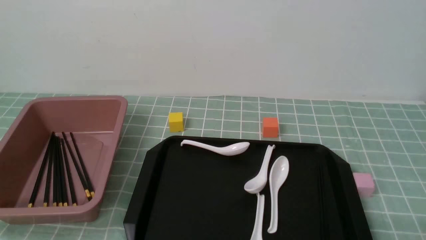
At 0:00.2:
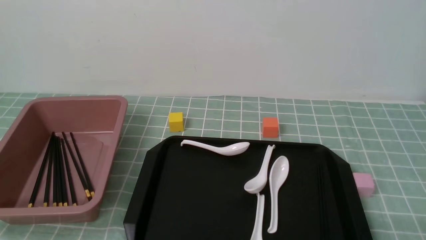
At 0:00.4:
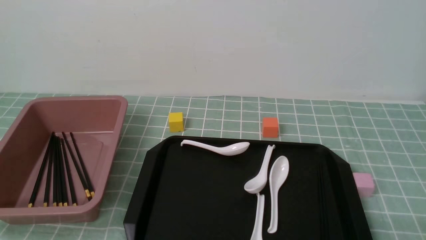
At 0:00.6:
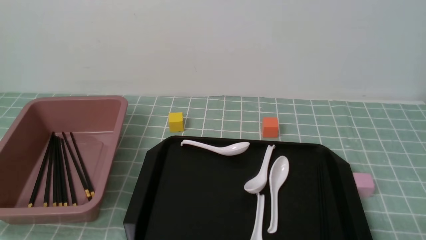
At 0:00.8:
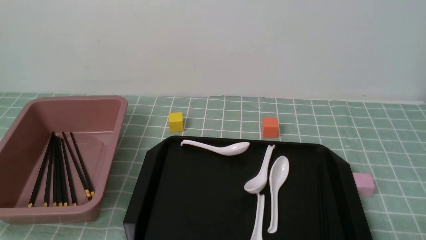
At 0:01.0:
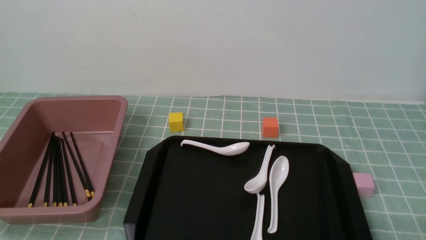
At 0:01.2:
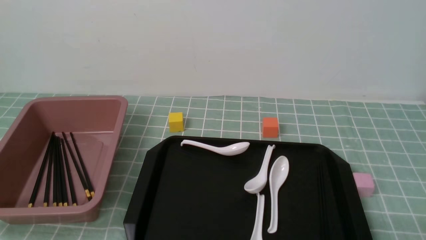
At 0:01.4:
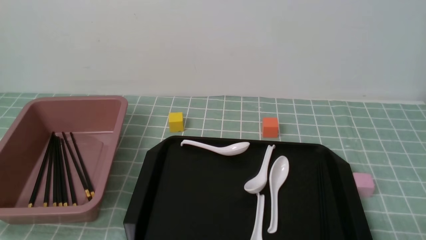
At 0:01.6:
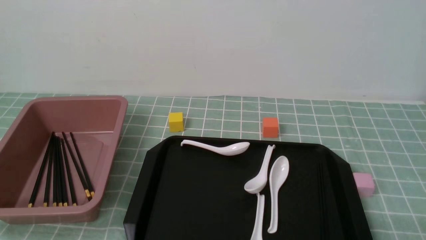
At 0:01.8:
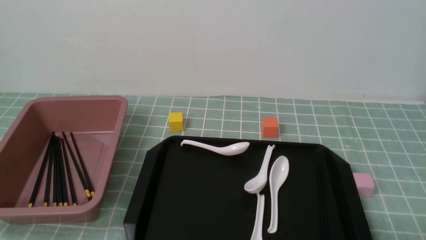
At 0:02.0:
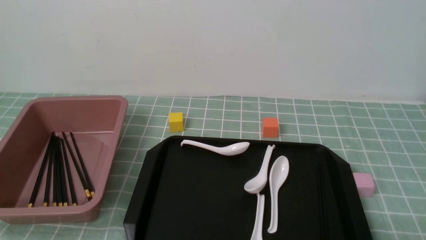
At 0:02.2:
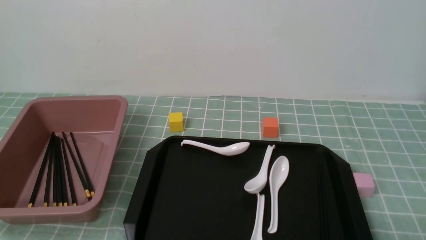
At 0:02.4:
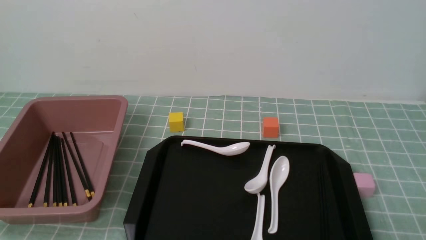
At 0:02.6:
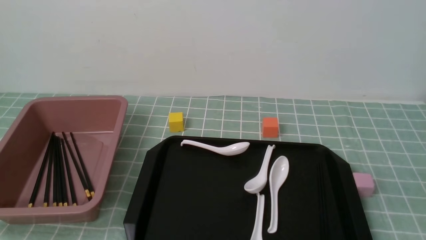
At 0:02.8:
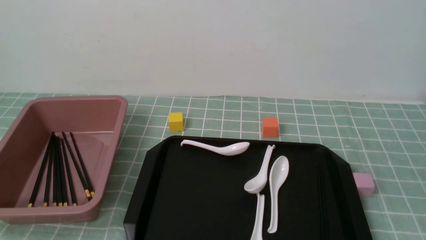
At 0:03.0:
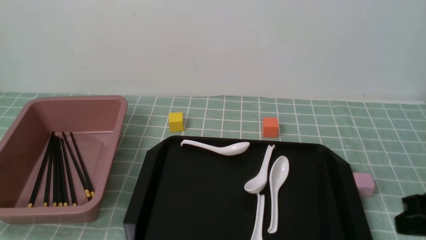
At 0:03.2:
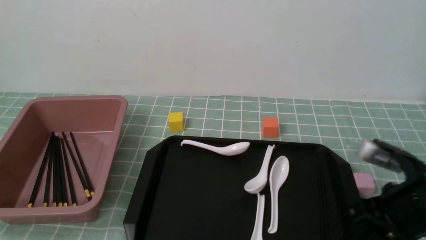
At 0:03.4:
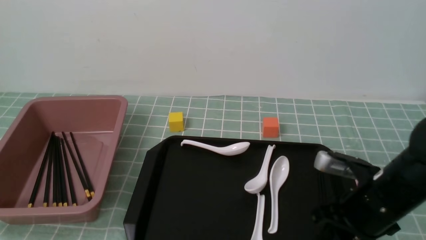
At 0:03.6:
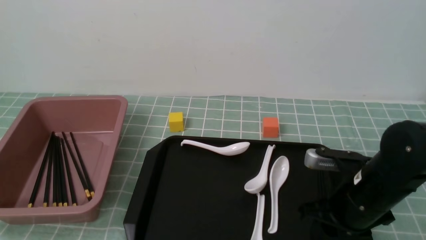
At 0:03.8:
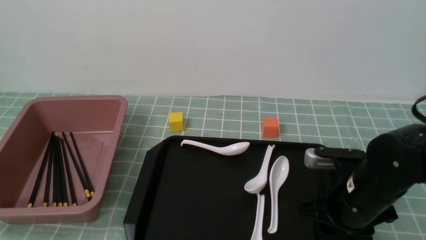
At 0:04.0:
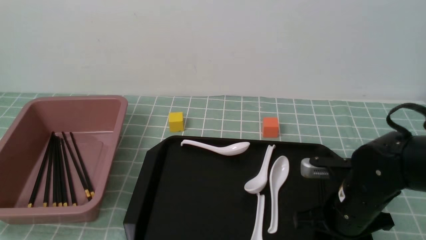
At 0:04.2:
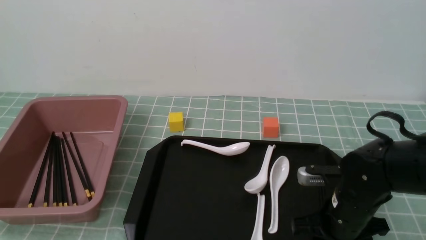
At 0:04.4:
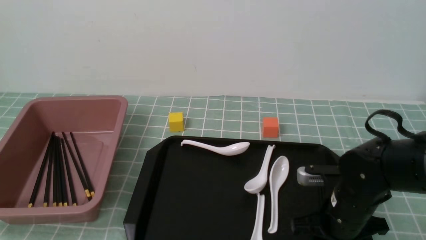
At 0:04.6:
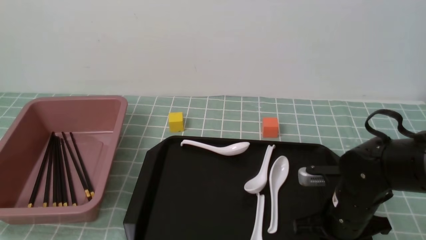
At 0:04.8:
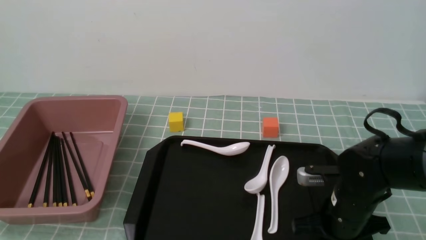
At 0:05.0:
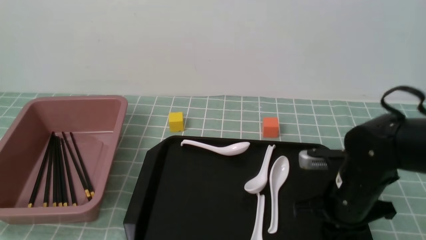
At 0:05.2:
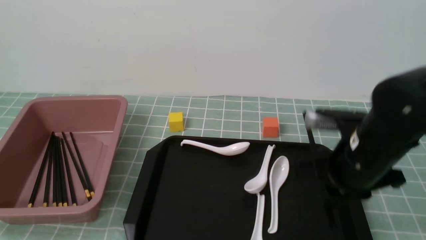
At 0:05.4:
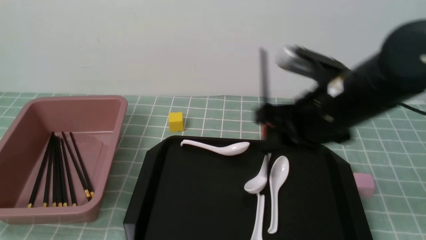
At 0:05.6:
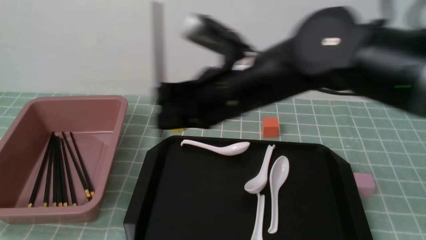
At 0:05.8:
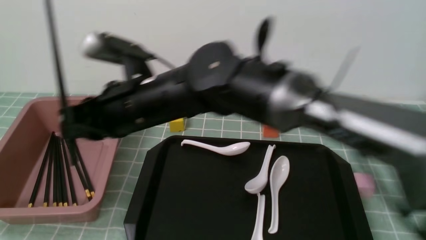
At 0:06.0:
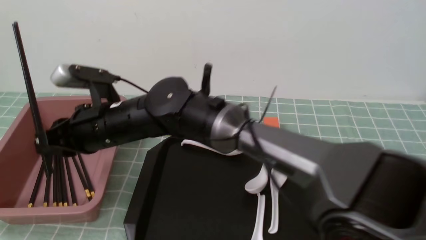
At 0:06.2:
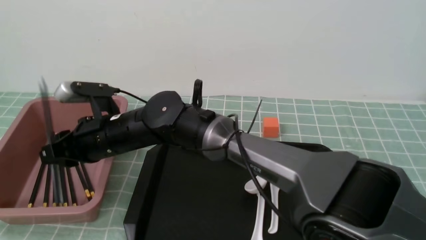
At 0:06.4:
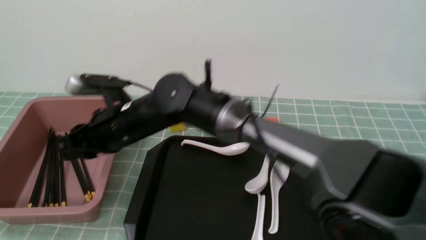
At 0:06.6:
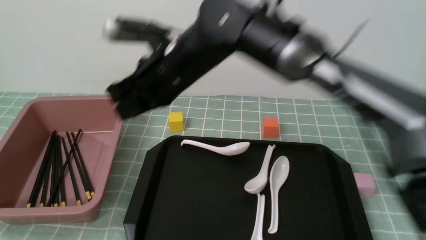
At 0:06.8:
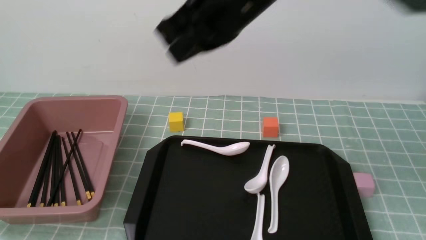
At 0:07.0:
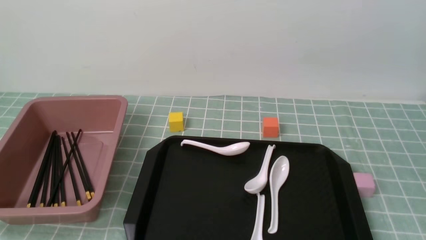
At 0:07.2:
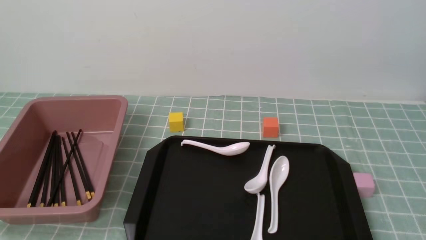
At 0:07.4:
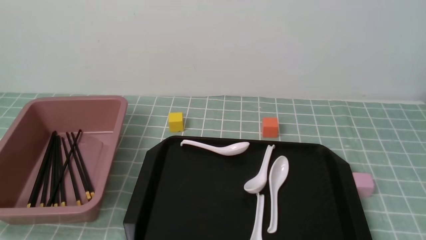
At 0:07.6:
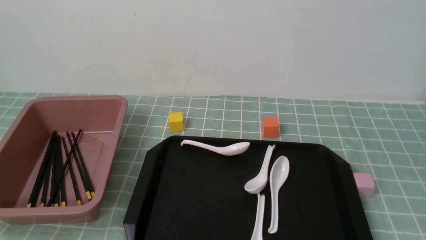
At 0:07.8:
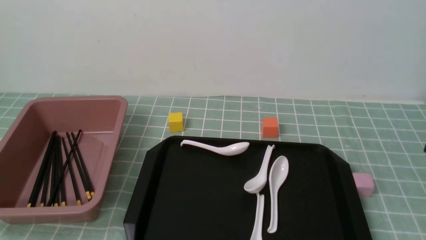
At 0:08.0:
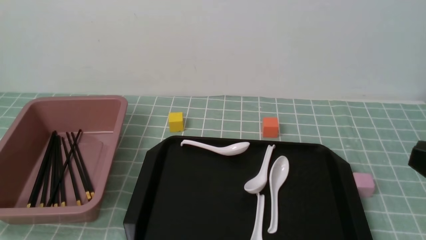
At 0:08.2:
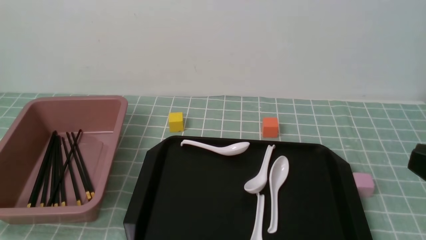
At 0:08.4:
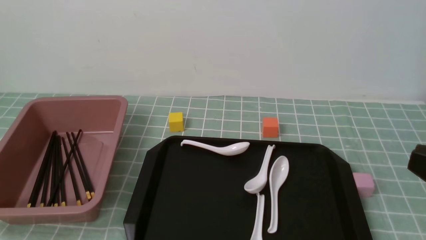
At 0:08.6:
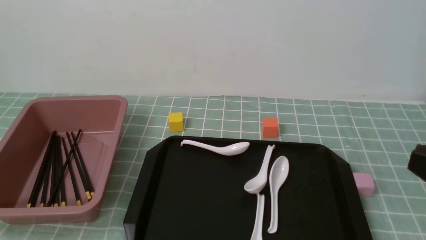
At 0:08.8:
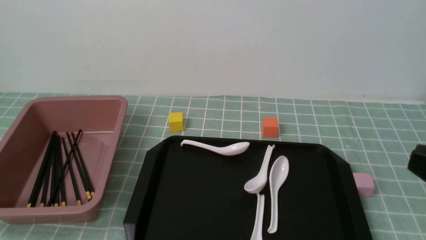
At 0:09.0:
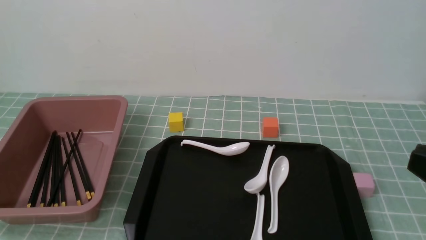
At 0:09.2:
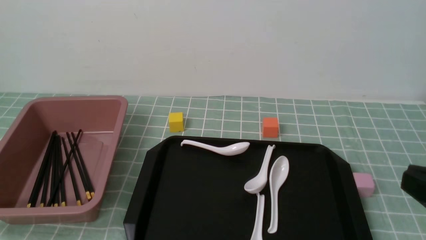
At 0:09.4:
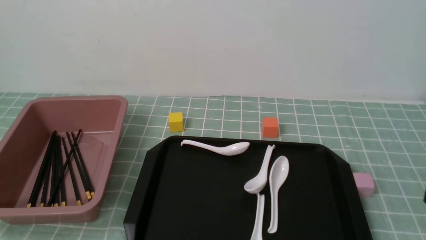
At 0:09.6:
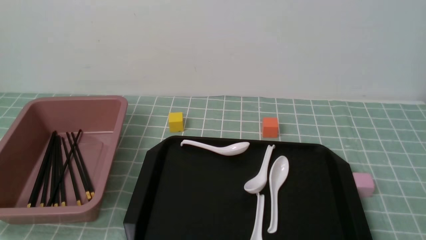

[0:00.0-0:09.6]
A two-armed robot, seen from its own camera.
Step, 0:00.0 to 0:05.2: use the right arm to grab a pair of chopsticks.
Step, 0:05.4 to 0:06.6: use the right arm to put the chopsticks into the lunch box.
0:01.6 to 0:03.2: The right gripper travels forward by roughly 15 cm, and closes.
0:03.2 to 0:04.8: The right gripper moves downward and to the left, some 10 cm, and opens and closes again.
0:04.8 to 0:06.4: The right gripper moves to the left and upward, roughly 30 cm.
0:06.4 to 0:08.0: The right gripper moves to the right and backward, about 40 cm, and closes its fingers.

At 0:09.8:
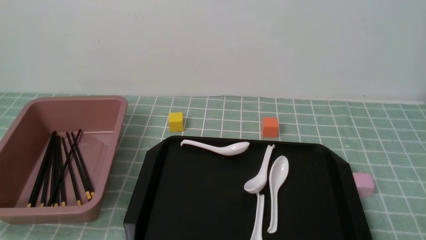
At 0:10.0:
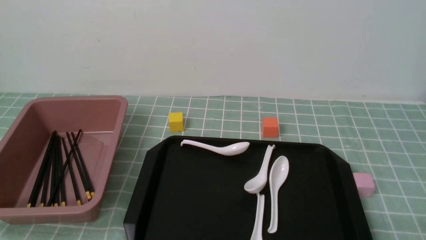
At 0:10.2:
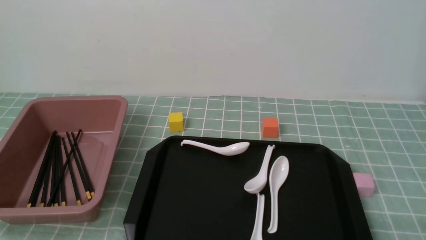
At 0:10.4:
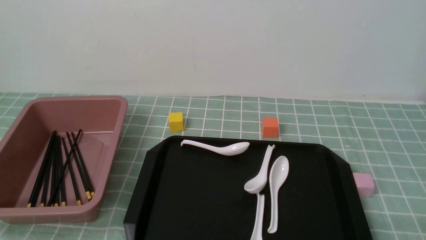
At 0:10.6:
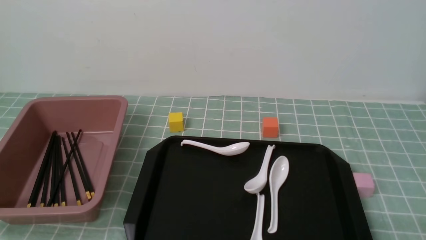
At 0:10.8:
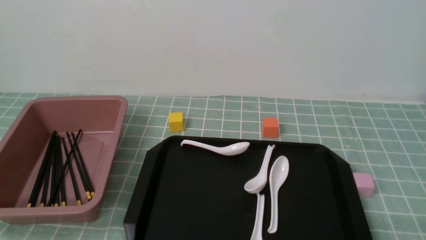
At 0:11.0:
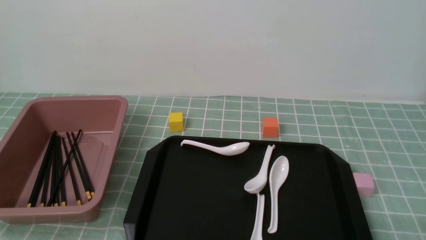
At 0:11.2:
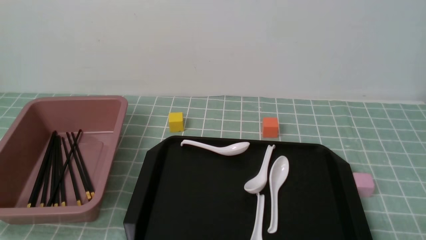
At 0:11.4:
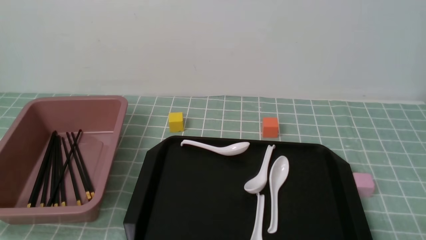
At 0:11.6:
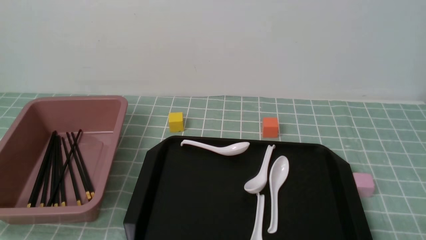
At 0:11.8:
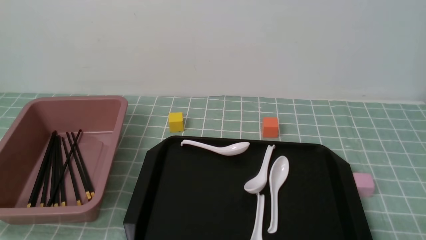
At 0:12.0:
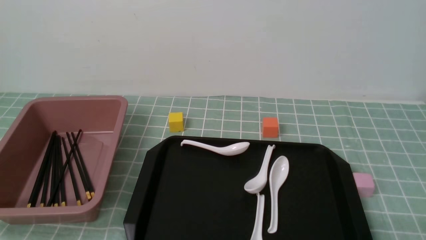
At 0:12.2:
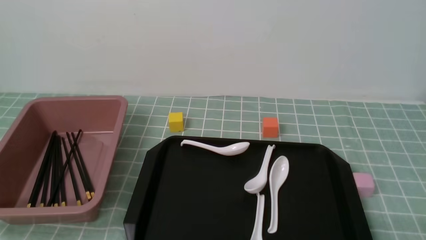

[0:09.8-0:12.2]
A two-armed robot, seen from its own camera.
0:11.0 to 0:12.2: Both grippers stay put.

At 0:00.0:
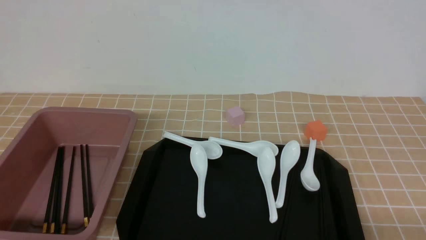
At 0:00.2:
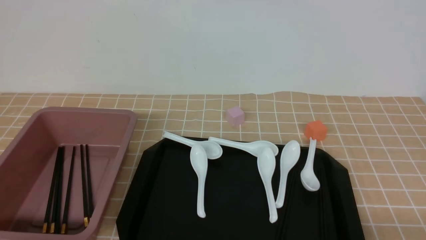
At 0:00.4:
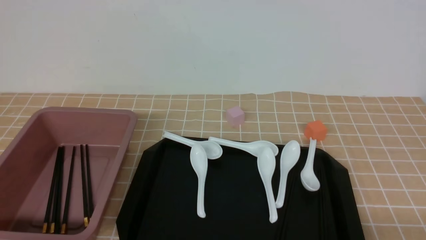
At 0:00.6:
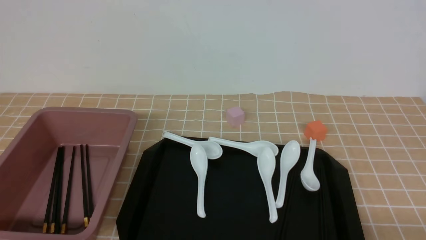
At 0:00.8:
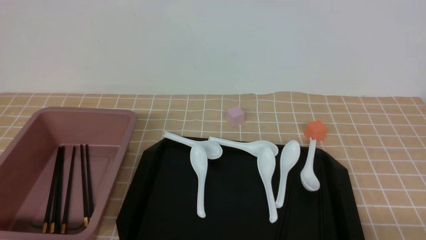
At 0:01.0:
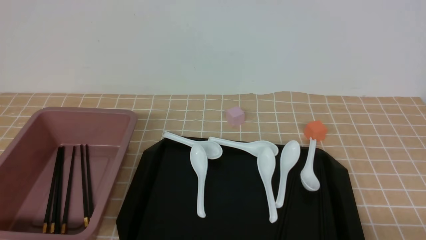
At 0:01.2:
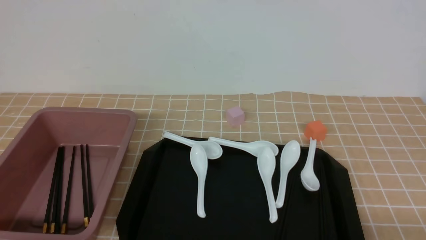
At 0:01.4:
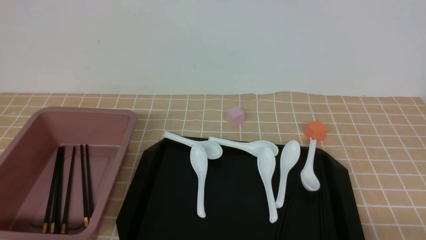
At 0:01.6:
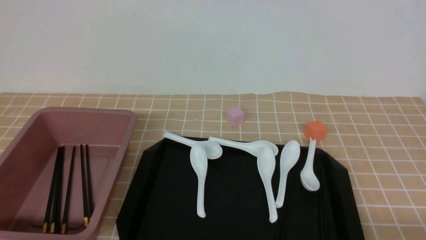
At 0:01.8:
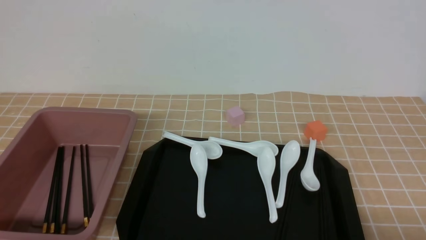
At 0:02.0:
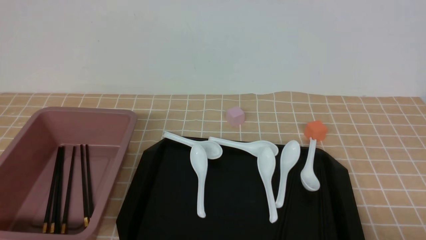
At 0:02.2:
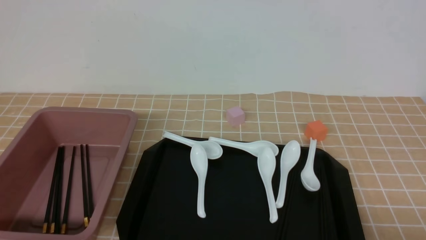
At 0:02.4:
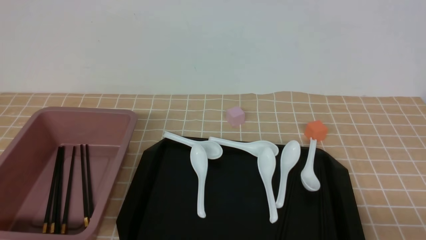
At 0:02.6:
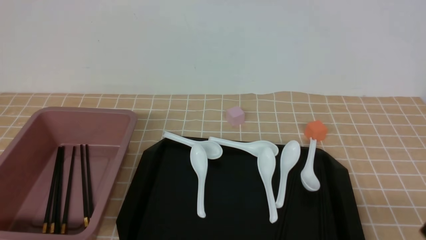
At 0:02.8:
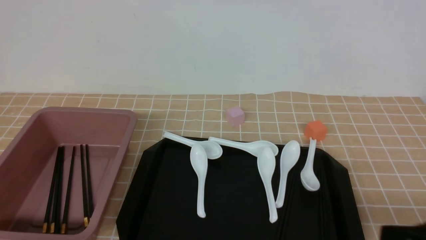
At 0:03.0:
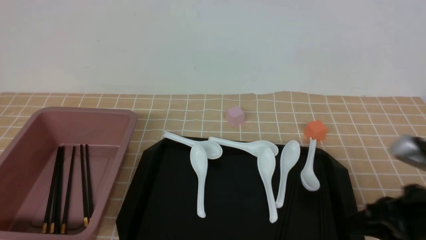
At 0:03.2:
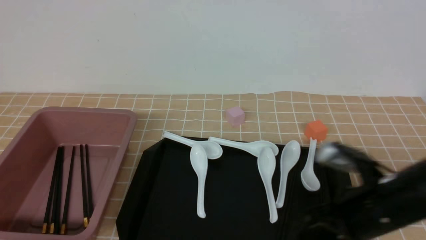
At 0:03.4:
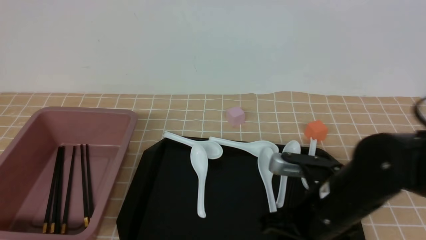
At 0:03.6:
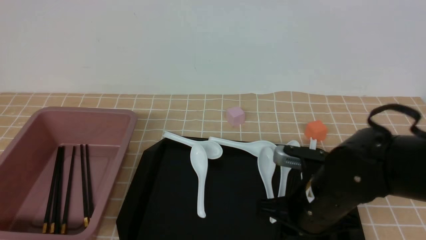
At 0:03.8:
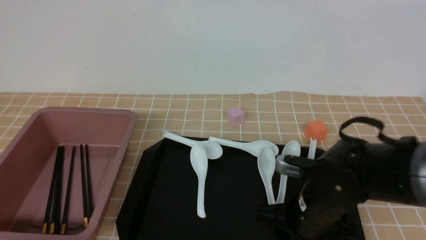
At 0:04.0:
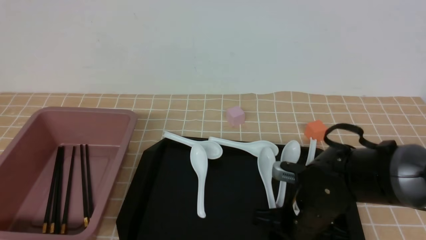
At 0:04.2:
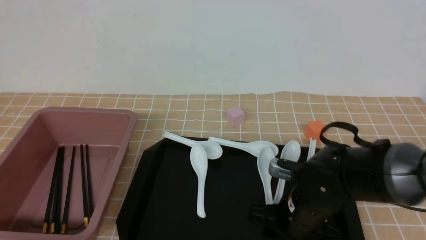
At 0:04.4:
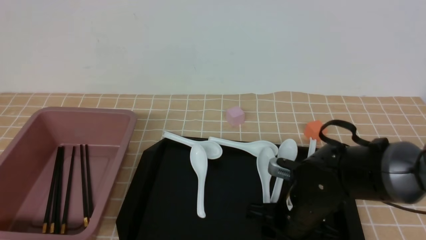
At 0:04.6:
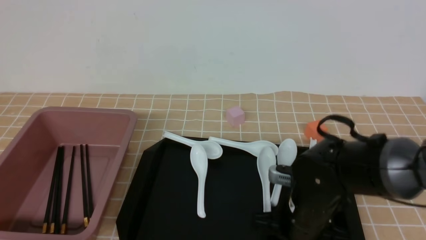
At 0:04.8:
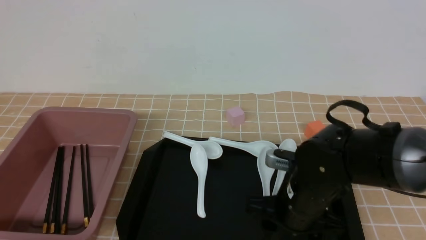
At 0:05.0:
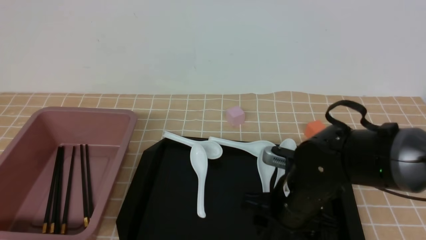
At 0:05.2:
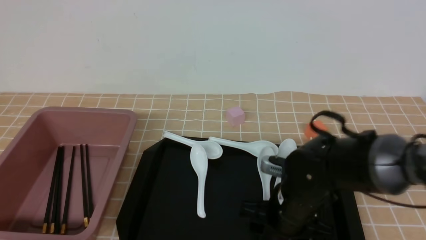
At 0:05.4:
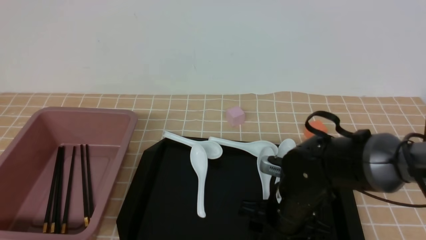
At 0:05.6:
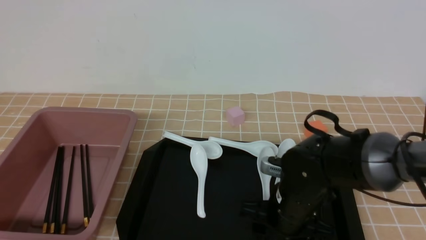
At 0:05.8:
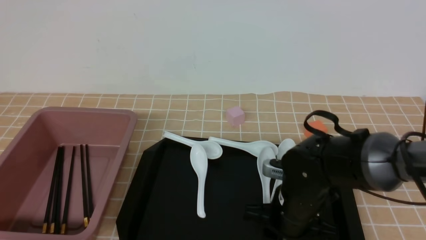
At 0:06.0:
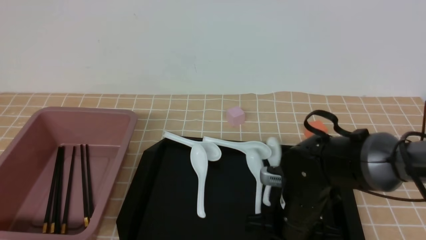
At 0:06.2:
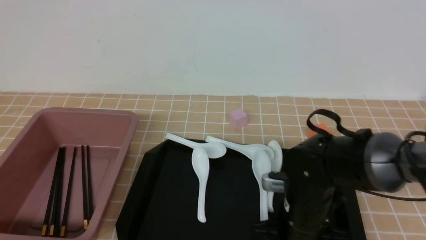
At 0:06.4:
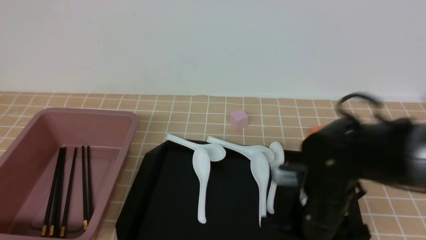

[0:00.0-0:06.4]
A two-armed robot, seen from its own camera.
Step, 0:00.0 to 0:06.4: use the right arm to grab a pair of chopsticks.
0:01.6 to 0:03.2: The right gripper heads forward and to the left, covering about 20 cm, and closes its fingers.
0:03.2 to 0:04.8: The right gripper goes roughly 10 cm to the left and downward, and opens.
0:04.8 to 0:06.4: The right gripper closes up.
